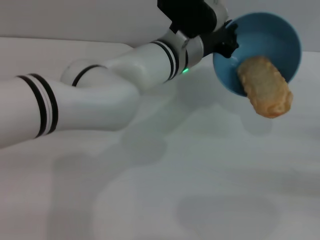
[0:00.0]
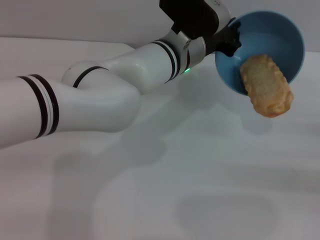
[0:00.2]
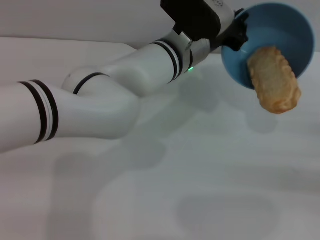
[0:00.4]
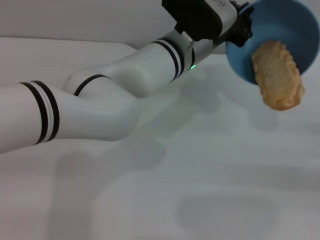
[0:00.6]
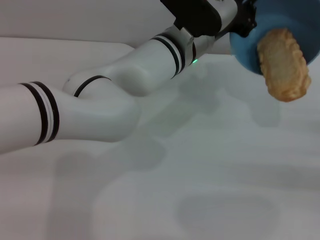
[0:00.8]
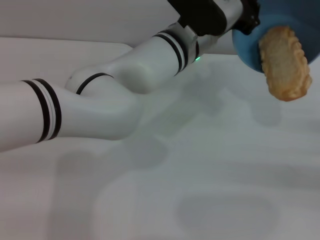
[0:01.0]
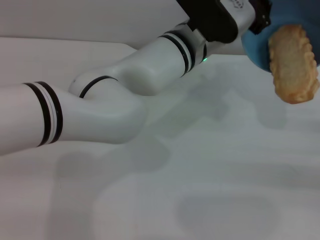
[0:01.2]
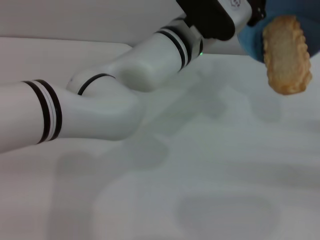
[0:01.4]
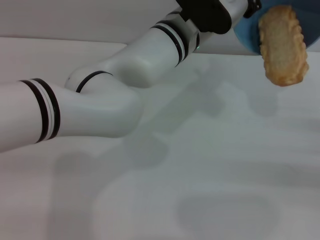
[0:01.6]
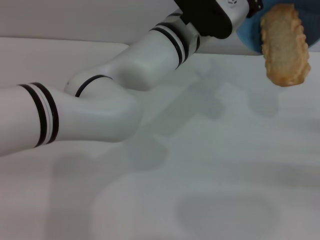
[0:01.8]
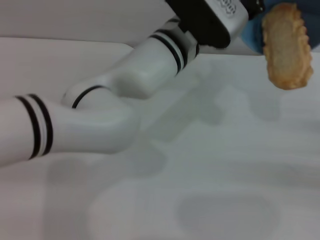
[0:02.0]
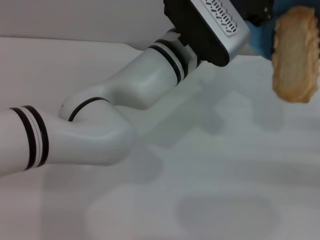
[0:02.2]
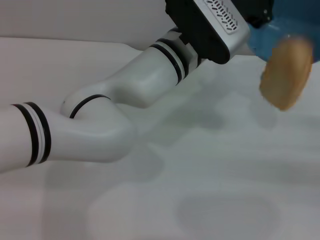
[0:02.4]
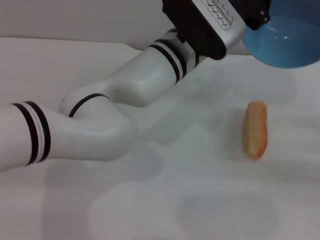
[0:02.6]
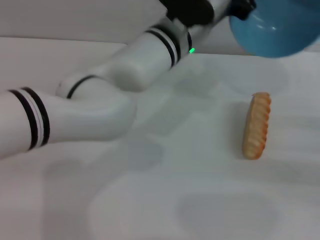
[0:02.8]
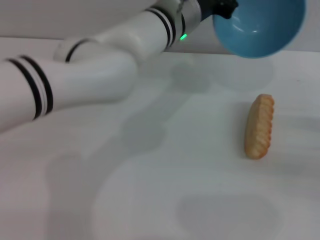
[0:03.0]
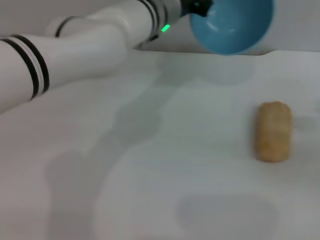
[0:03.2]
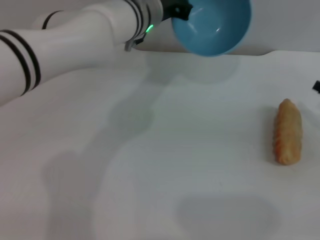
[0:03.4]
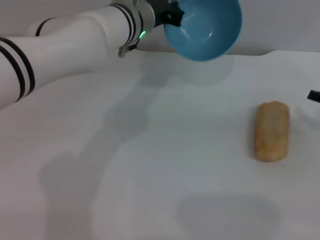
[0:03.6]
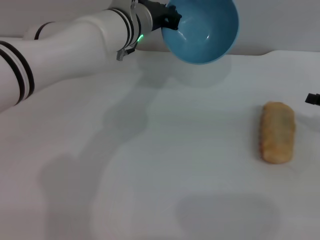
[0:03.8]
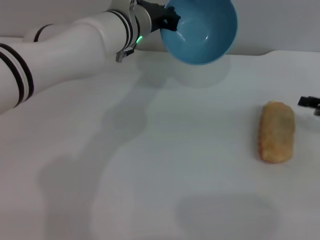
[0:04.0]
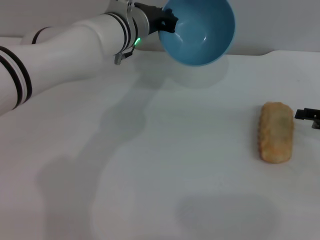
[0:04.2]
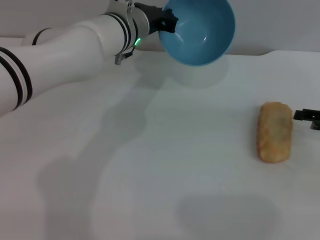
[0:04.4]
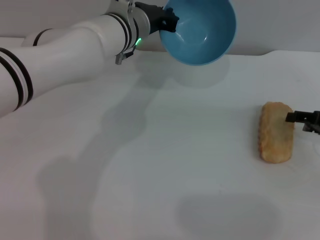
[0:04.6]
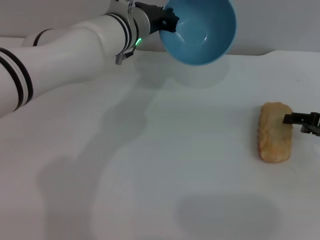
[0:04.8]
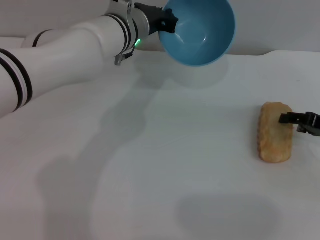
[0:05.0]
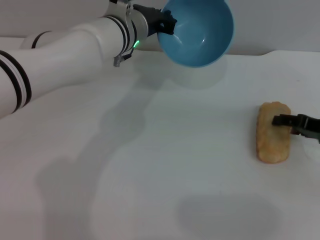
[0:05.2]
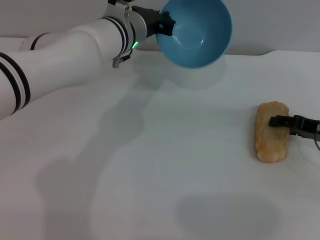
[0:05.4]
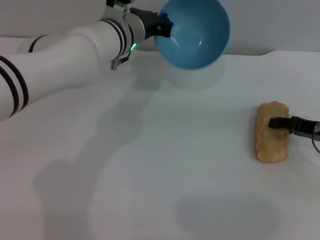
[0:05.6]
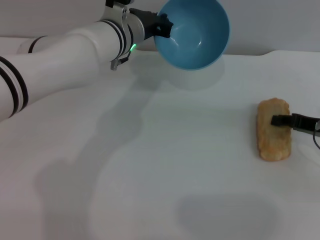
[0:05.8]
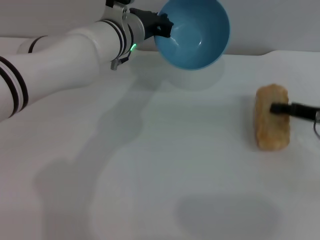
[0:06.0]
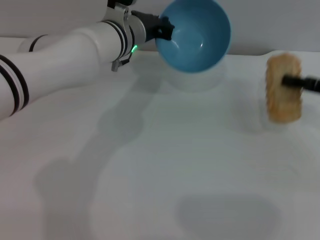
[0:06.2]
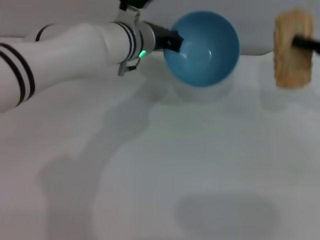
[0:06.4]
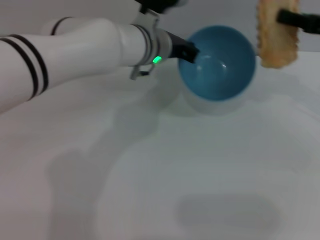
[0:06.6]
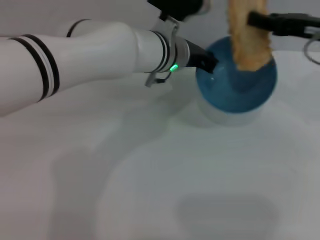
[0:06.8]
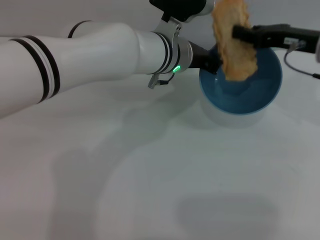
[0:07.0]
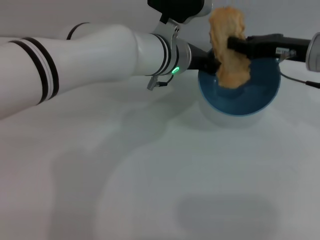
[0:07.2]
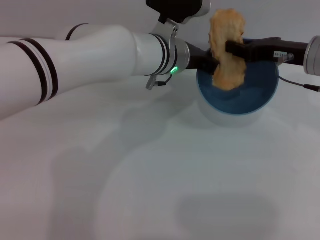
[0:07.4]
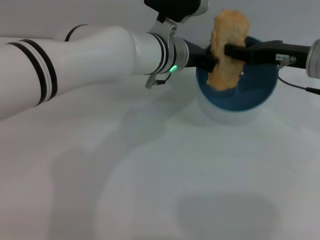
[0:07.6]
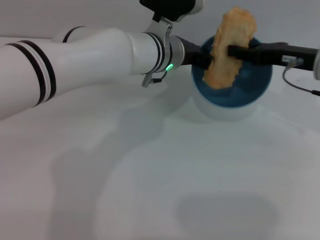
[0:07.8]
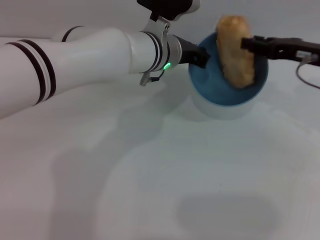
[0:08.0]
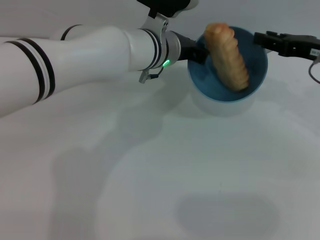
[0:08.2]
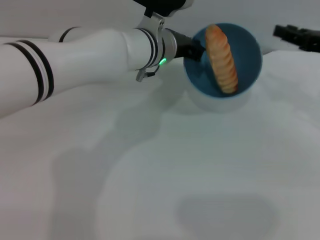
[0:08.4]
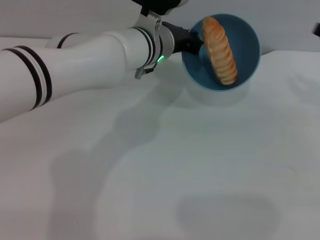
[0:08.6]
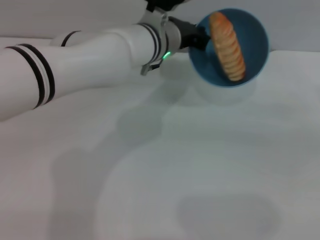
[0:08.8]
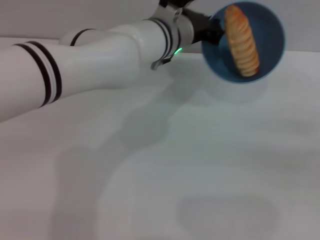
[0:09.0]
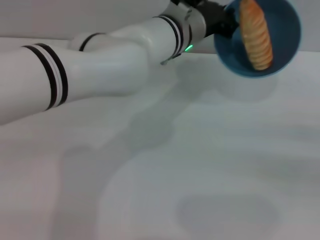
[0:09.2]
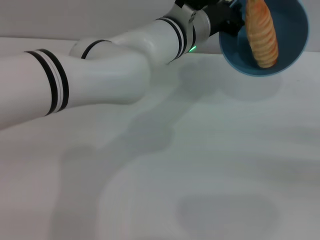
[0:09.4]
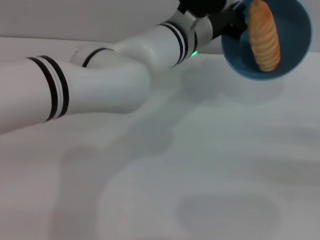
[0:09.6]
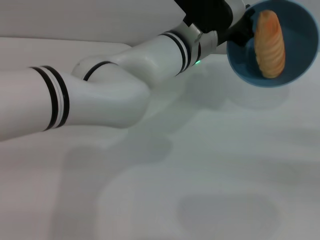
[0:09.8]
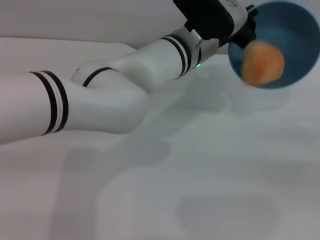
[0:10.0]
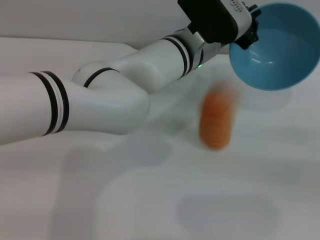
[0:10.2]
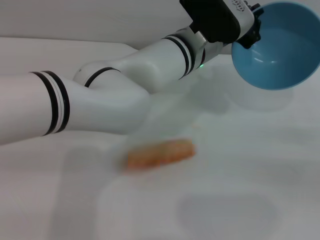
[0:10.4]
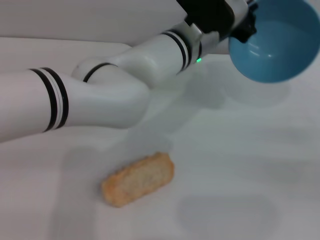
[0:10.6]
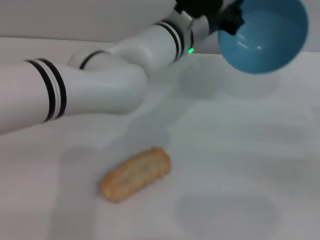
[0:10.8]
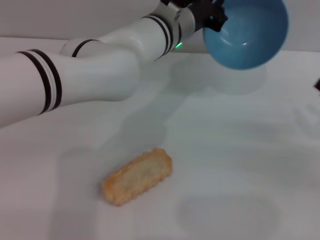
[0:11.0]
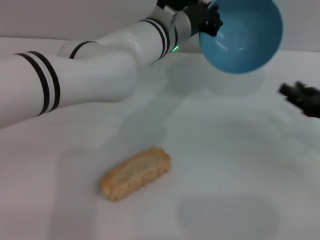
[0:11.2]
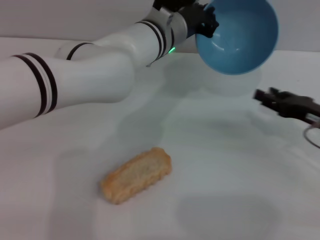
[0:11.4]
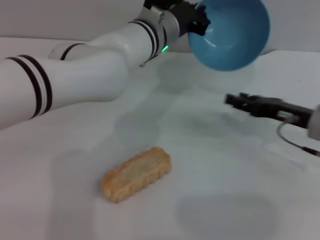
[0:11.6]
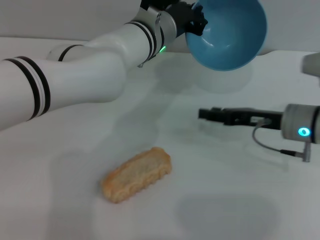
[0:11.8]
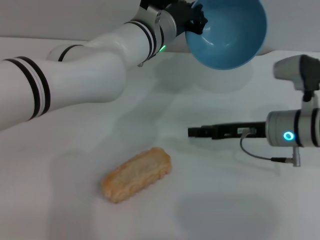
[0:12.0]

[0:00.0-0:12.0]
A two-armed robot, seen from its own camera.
Task of the whole recording: put the bread into the blue bowl and pour it out repeatedly.
Step, 0:00.0 to 0:03.6: Pour the bread out of the bowl.
Step, 0:03.8 to 0:06.2: Pick up the bread with the right gripper.
Step, 0:06.4 to 0:08.4: Place the bread into the bowl.
Step, 0:08.6 to 0:11.2: Pour the bread out of the bowl.
0:03.0 to 0:04.4: The left gripper is displaced to the left by roughly 5 cm; the right gripper travels forward by approximately 5 cm.
0:04.4 to 0:06.0: The right gripper closes its fingers.
0:06.0 to 0:07.6: The right gripper goes approximately 10 cm to the left and upward. Meanwhile the left gripper heads to the right, covering approximately 5 cm.
0:07.6 to 0:09.0: The right gripper shifts approximately 20 cm to the right and backward, and opens.
0:10.4 to 0:12.0: The right gripper moves to the left and forward, some 20 cm, while the left gripper shifts about 5 cm to the left.

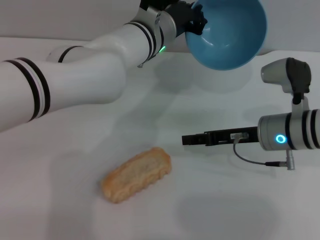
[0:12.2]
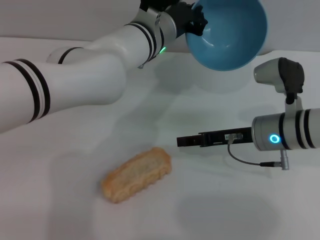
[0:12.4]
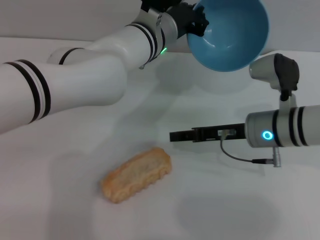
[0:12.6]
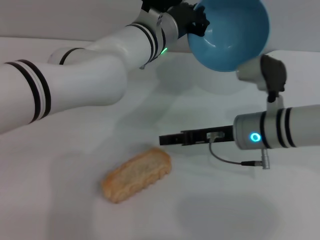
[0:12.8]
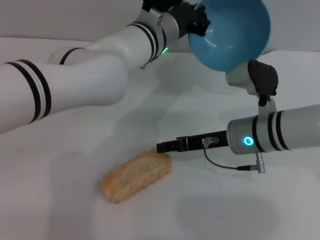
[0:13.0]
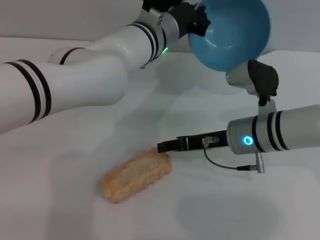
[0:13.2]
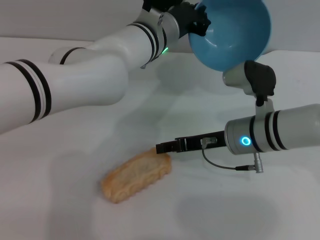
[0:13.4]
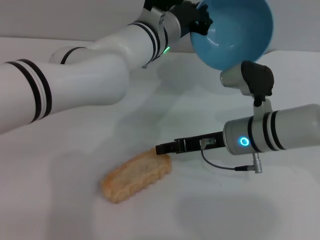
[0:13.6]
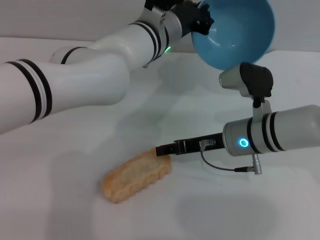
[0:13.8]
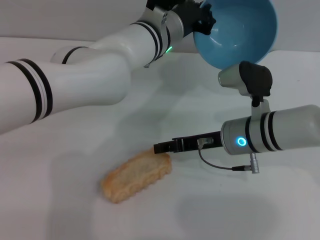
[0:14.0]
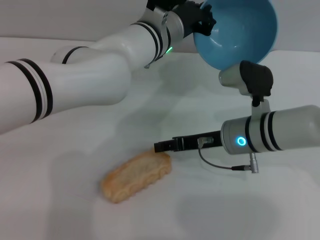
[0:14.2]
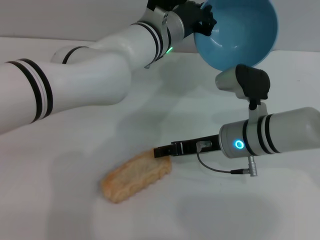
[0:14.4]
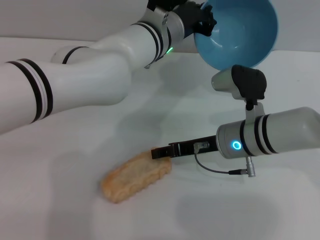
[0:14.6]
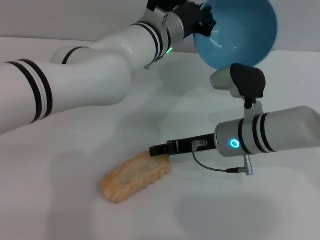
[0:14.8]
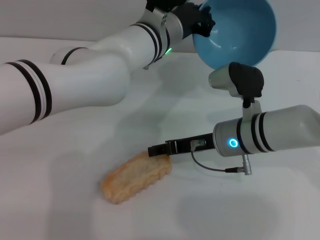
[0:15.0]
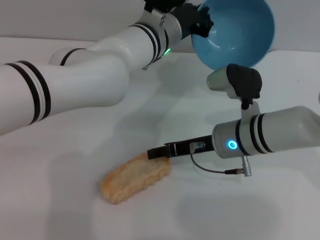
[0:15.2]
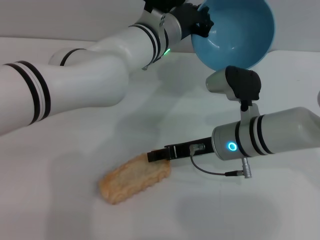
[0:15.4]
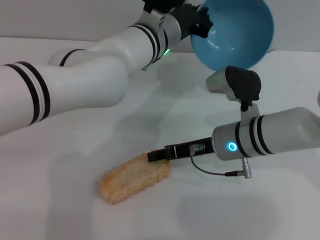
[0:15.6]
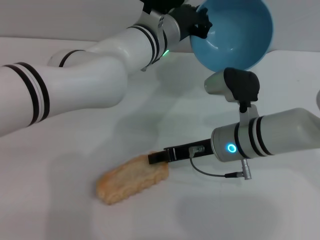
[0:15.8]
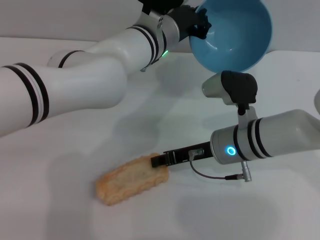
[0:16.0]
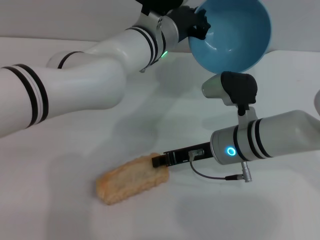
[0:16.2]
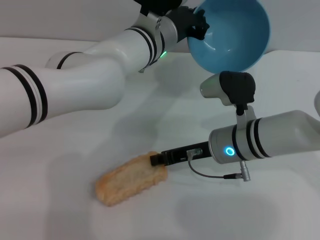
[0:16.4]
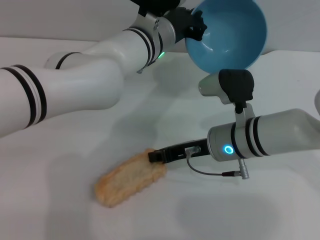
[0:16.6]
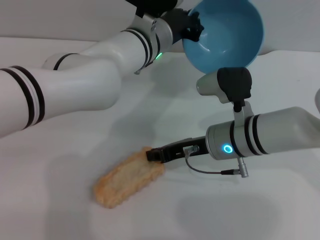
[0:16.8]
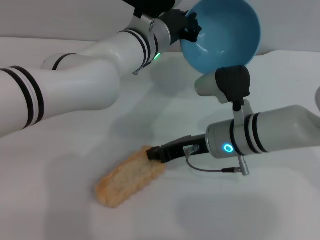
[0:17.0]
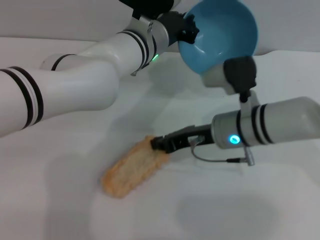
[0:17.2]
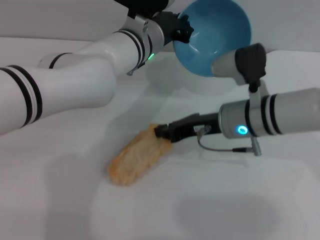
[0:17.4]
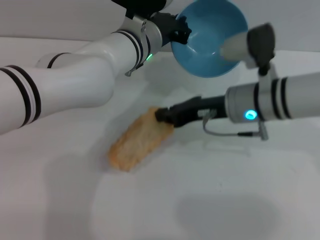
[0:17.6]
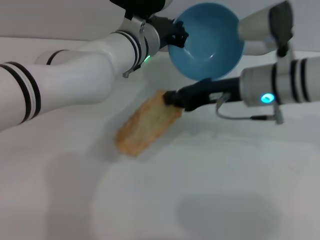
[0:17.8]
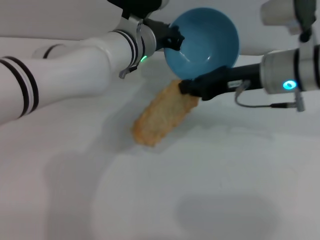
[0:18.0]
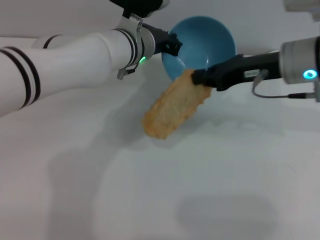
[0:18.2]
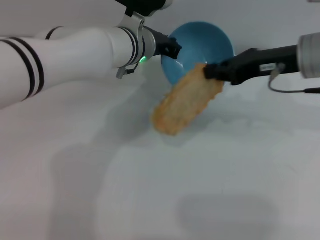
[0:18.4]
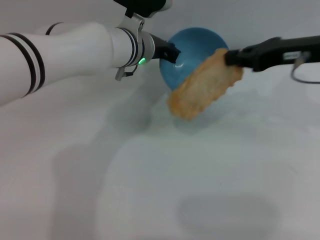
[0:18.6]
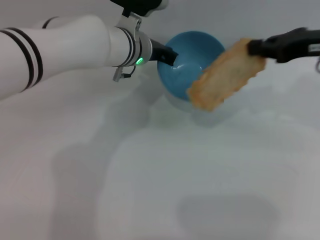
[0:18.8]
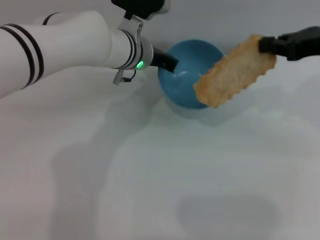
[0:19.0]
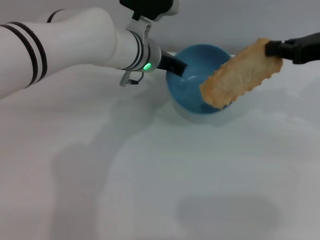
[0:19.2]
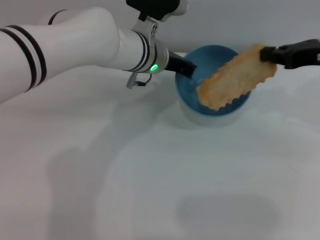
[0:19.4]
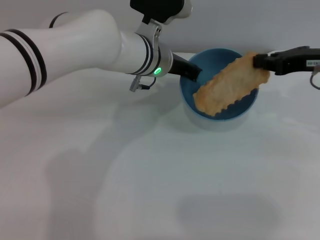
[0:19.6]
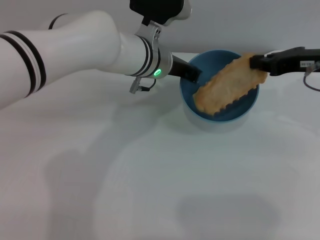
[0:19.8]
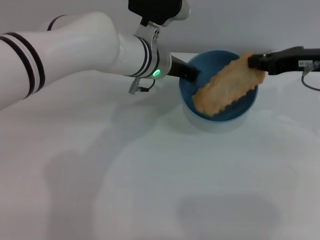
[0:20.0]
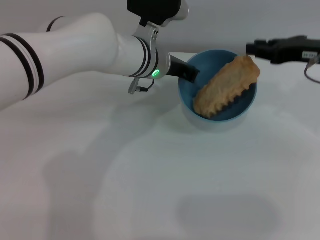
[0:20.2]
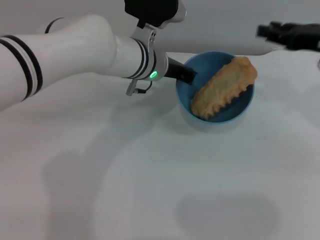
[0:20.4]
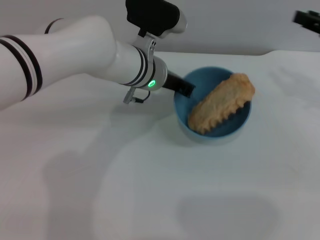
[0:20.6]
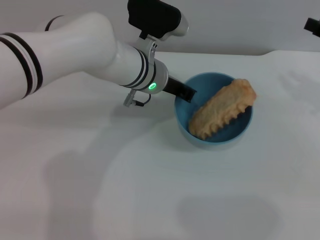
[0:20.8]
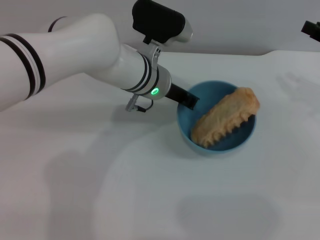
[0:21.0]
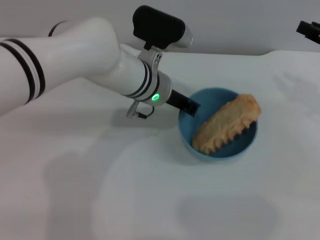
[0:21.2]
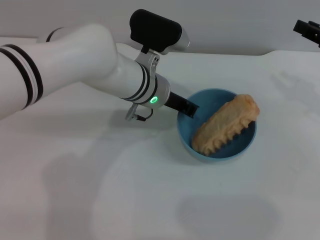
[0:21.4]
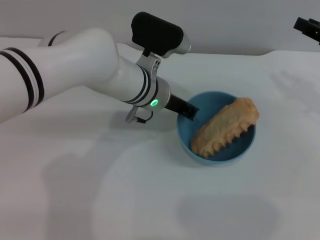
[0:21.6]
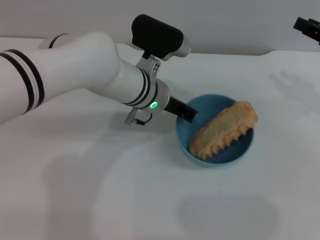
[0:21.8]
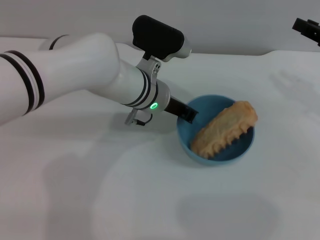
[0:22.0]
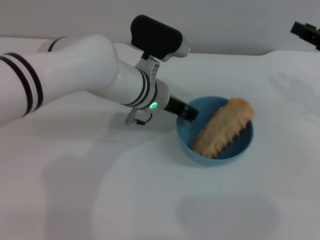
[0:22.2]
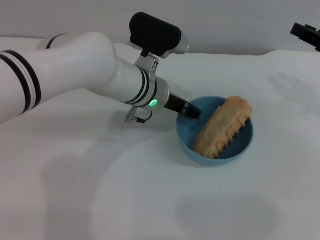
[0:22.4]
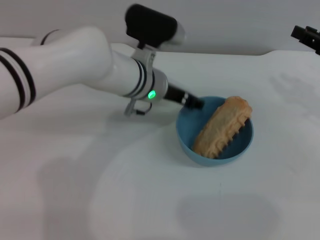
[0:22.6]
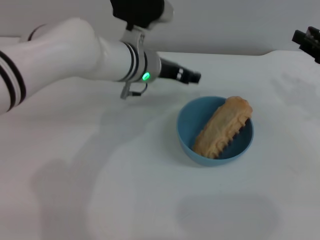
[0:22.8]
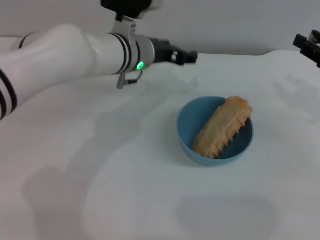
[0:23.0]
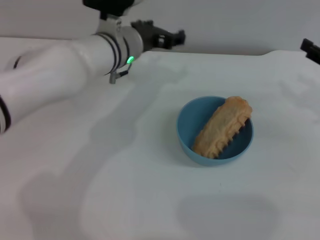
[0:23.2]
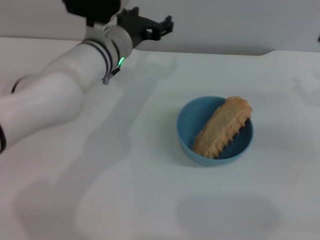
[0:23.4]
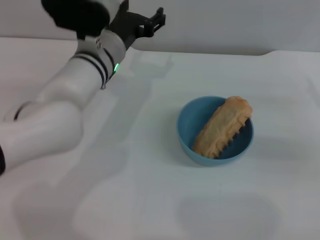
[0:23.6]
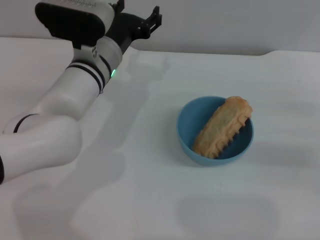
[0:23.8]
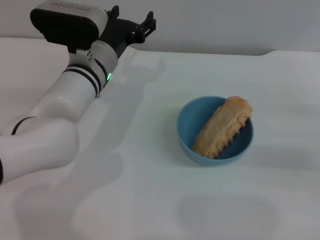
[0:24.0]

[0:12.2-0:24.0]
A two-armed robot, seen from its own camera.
Task of the whole recording: put the bread into the blue bowl and pour it out repeatedly.
Step, 0:12.2 to 0:18.2: Pick up the bread with the right gripper.
Step, 0:18.4 to 0:20.2: Place the bread into the bowl.
Step, 0:20.4 to 0:23.0: Place the bowl on the table.
0:12.2 to 0:13.6: The right gripper heads to the left, covering roughly 5 cm.
0:13.6 to 0:15.2: The grippers stay close to where they were, moving slightly.
0:15.2 to 0:16.6: The right gripper closes its fingers.
0:16.6 to 0:18.2: The right gripper is displaced upward, to the right and forward by approximately 15 cm.
0:18.2 to 0:19.6: The right gripper heads to the right, covering some 10 cm.
0:19.6 to 0:21.0: The right gripper travels to the right by roughly 5 cm, and opens up.
0:21.0 to 0:22.6: The grippers make only small movements.
0:22.6 to 0:24.0: The right gripper goes approximately 10 cm downward and backward; the left gripper moves to the left, about 5 cm, and opens up.
